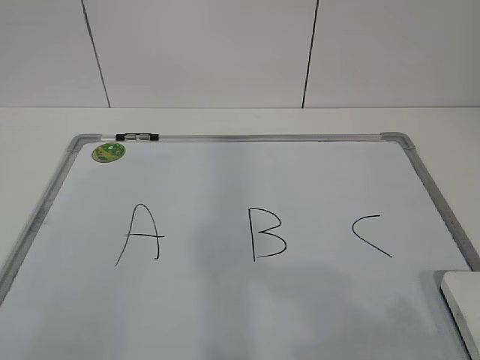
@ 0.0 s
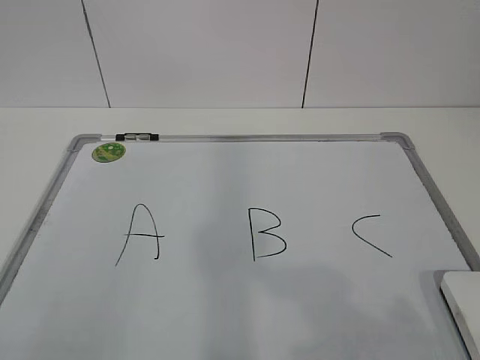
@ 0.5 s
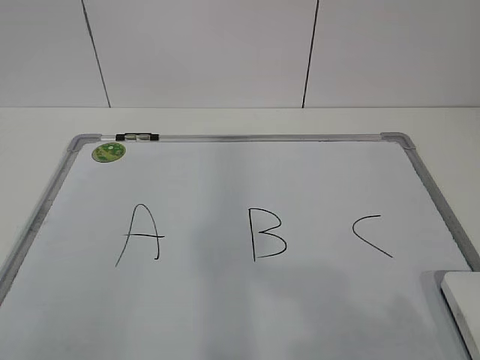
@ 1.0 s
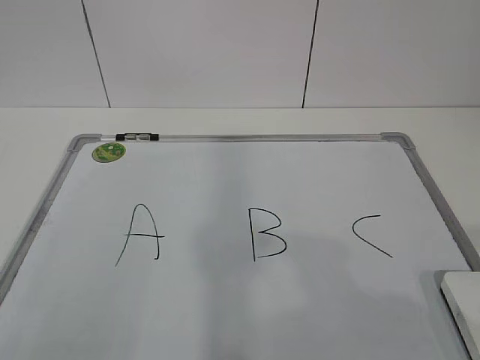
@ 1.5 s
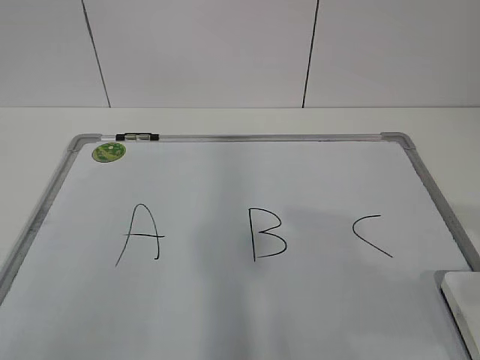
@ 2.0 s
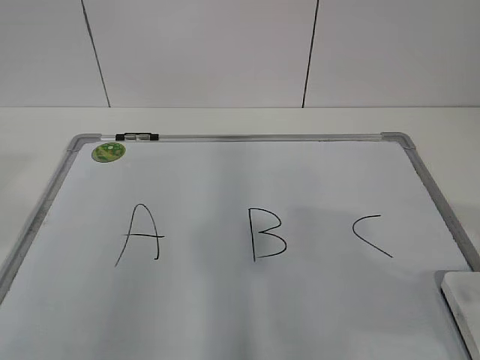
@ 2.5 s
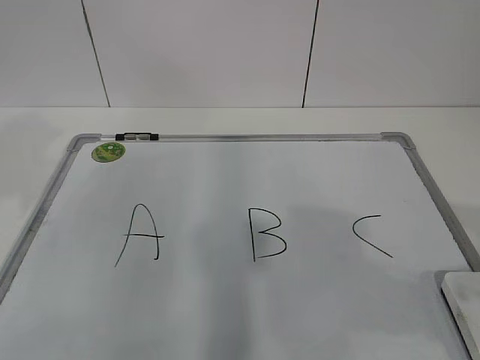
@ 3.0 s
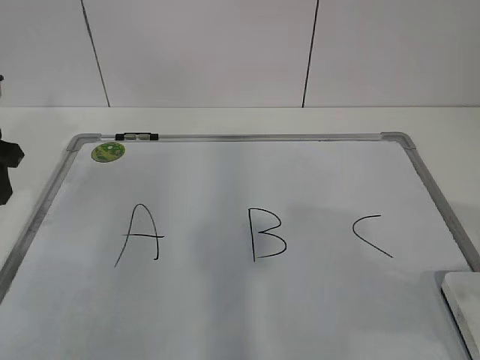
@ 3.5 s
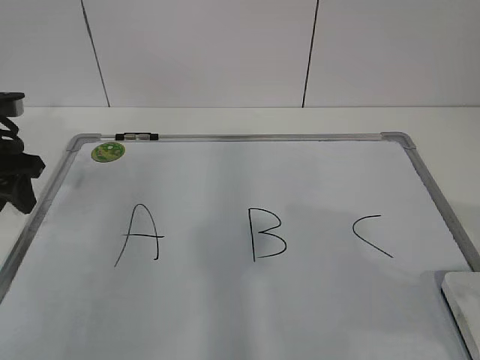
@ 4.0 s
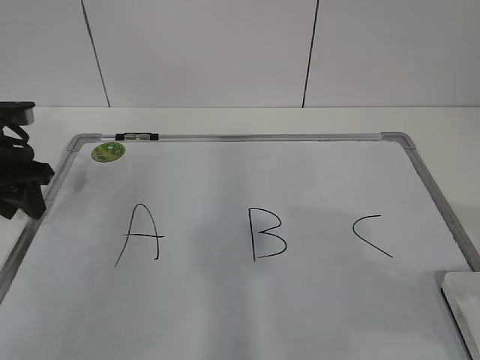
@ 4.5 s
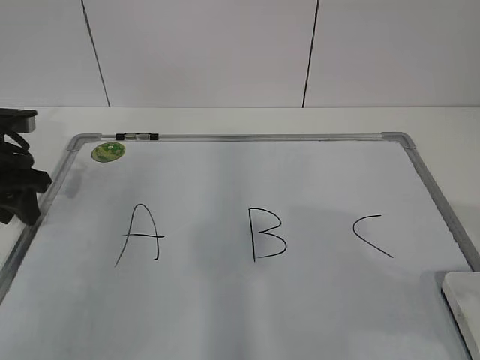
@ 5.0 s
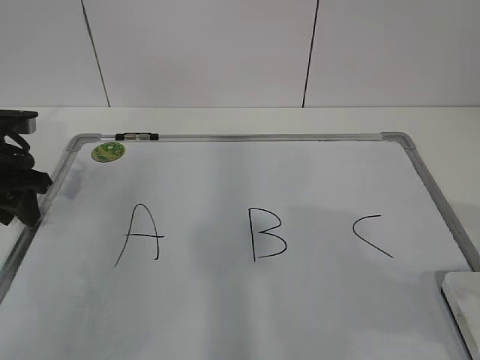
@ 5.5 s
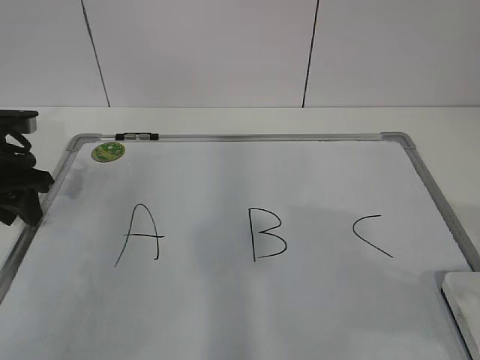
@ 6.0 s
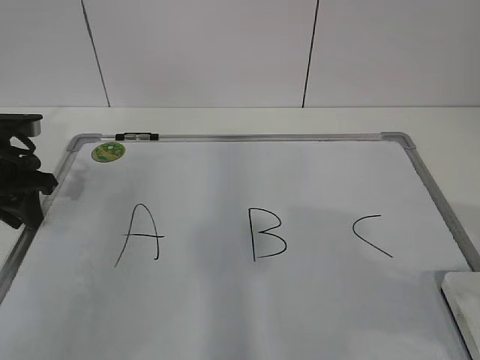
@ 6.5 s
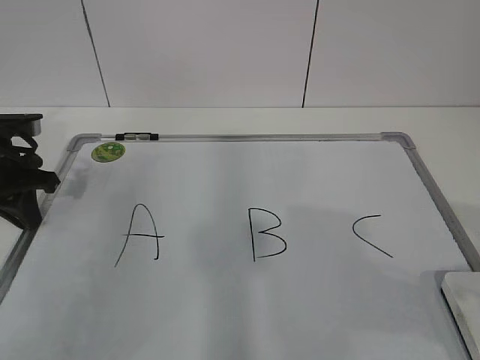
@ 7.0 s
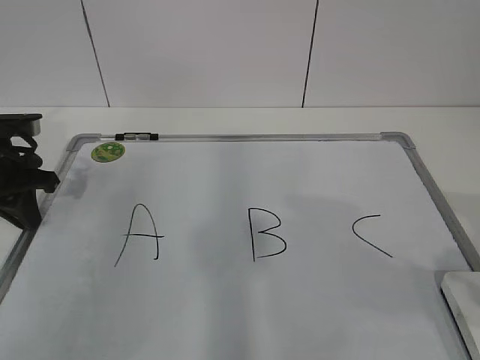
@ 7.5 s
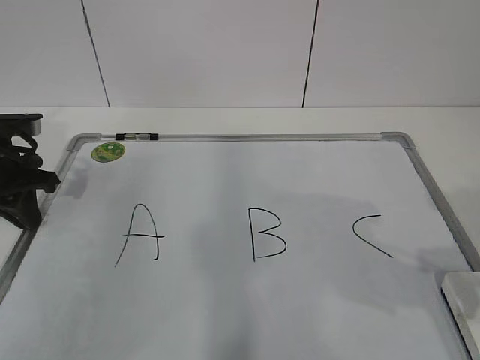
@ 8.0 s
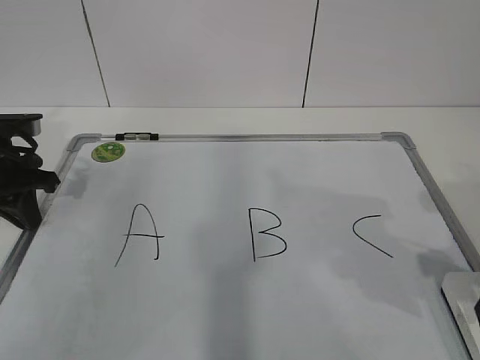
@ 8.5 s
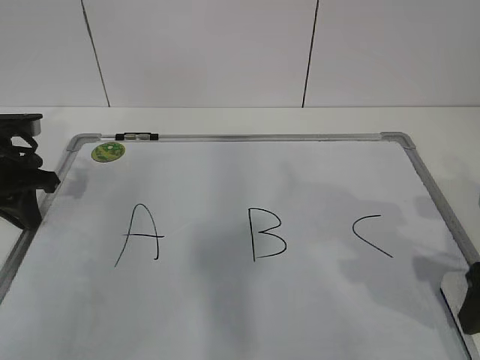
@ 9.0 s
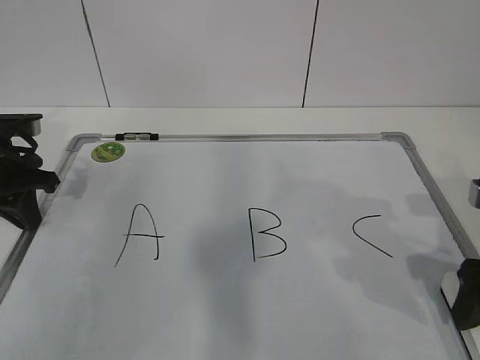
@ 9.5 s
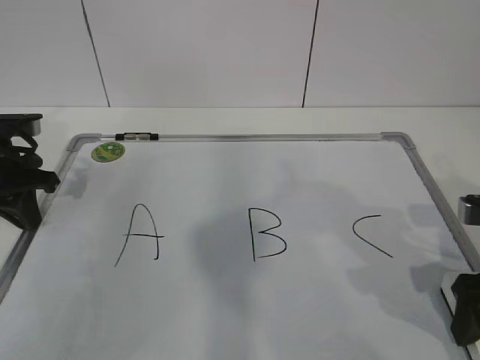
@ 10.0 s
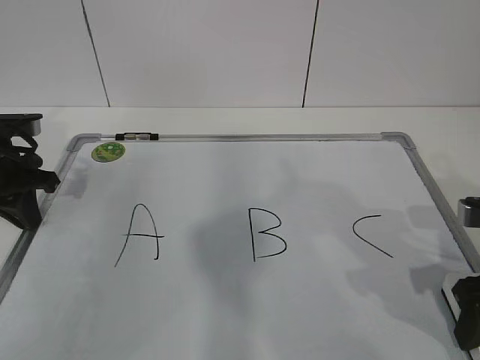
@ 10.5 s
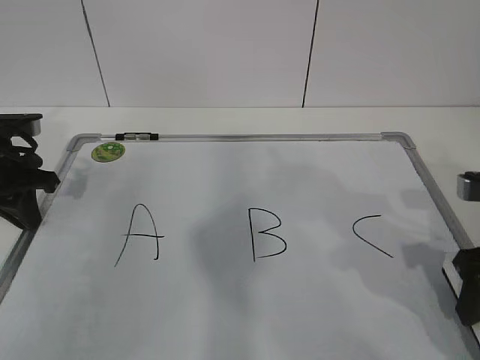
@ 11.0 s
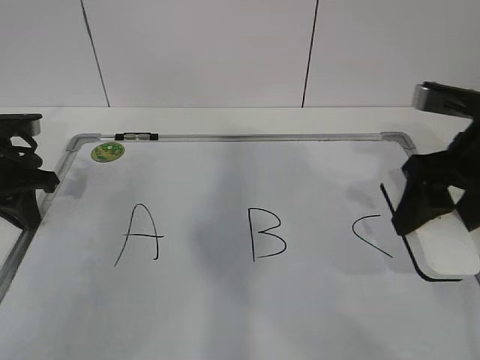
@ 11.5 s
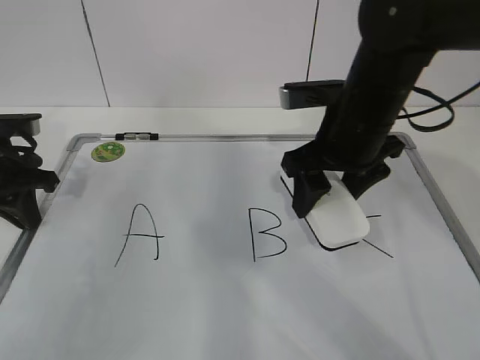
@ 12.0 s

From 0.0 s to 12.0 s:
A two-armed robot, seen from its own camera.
Task of the whole recording: pick up the eraser on the blackboard and erase the letter "B".
Step, from 0.0 s to 5.5 s: Hold the drawing board steady with your left hand.
From 2.0 s to 4.0 s: The left gripper is displaced forward by about 35 cm.
From 4.0 s to 6.0 s: There are only small adjustments of the grippers.
From 6.0 s to 8.0 s: The left gripper closes its fingers.
From 8.0 s to 10.0 s: The right gripper is displaced downward and forward by about 10 cm, and opens up.
From 10.0 s to 12.0 s: The right gripper shifts roughly 20 cm to the left, forward and upward, and closes up.

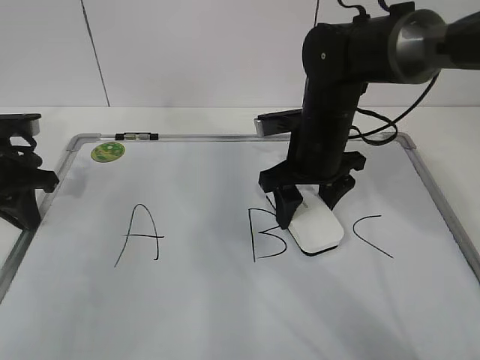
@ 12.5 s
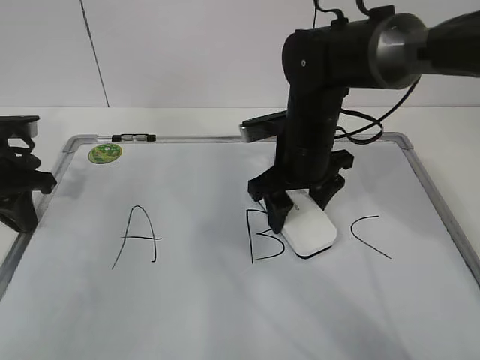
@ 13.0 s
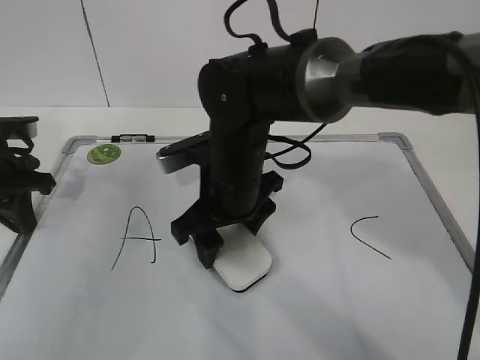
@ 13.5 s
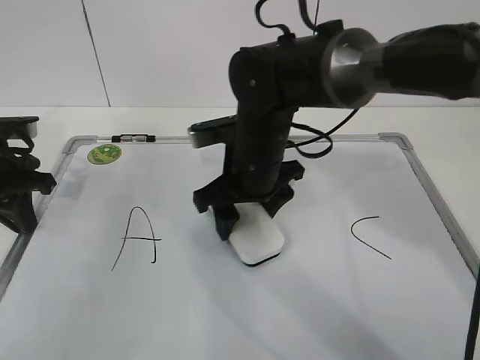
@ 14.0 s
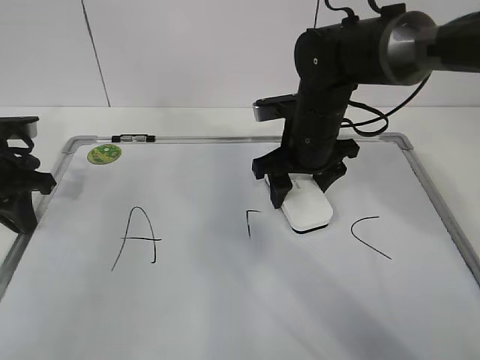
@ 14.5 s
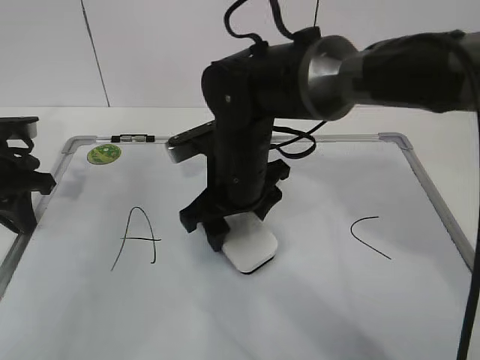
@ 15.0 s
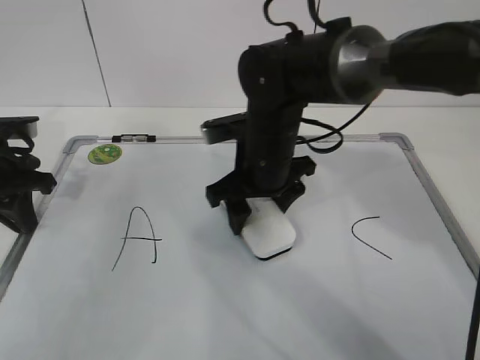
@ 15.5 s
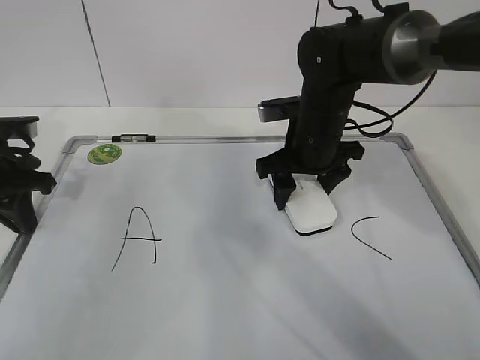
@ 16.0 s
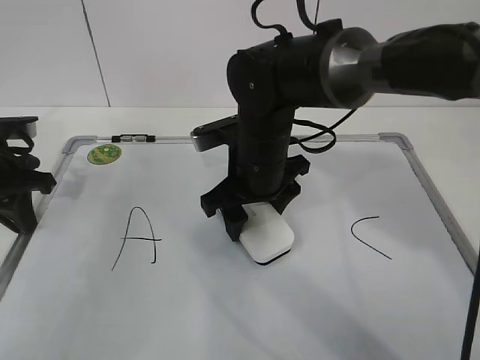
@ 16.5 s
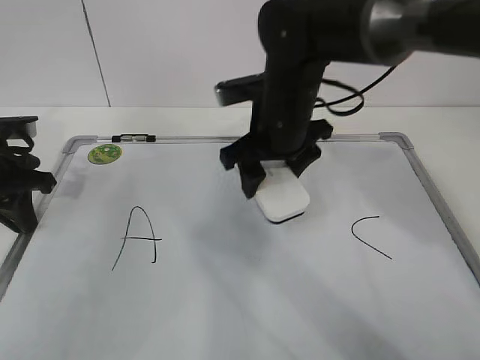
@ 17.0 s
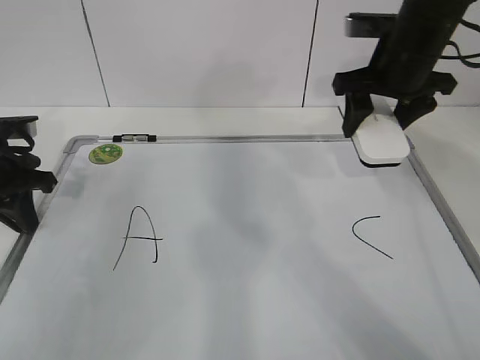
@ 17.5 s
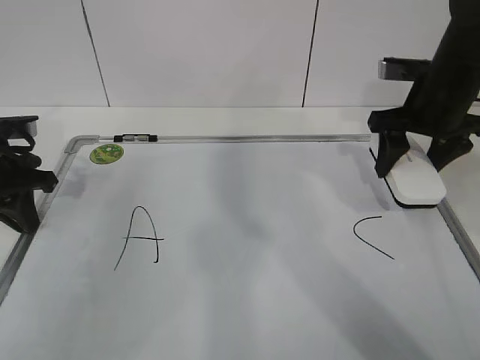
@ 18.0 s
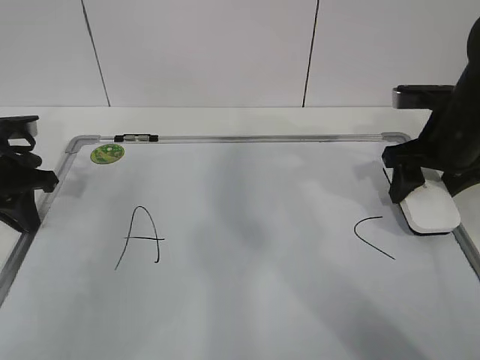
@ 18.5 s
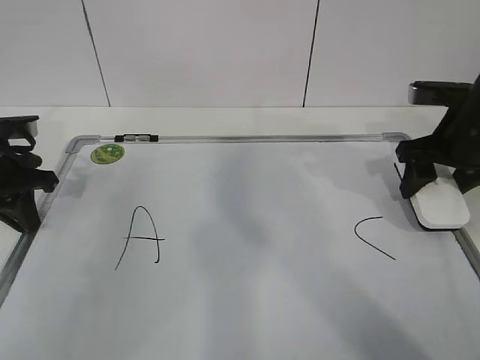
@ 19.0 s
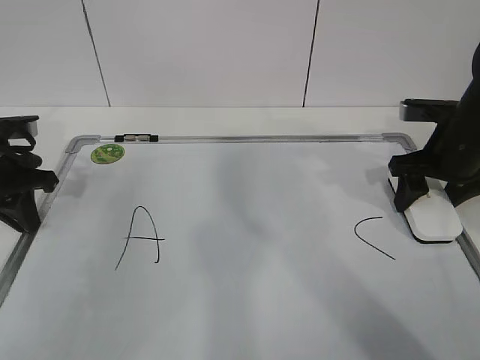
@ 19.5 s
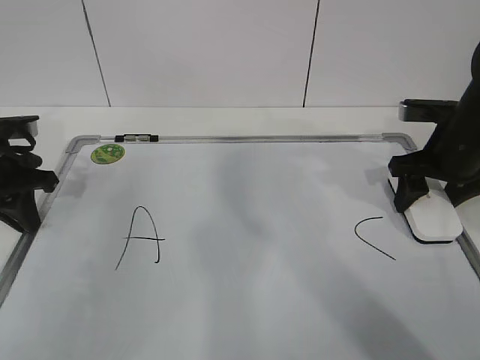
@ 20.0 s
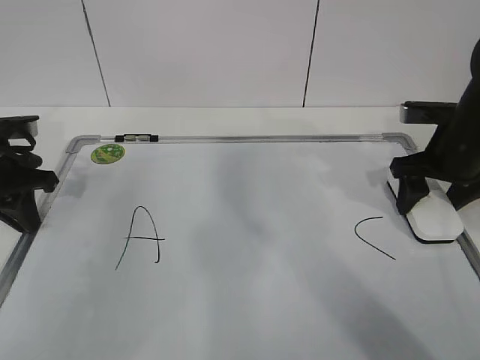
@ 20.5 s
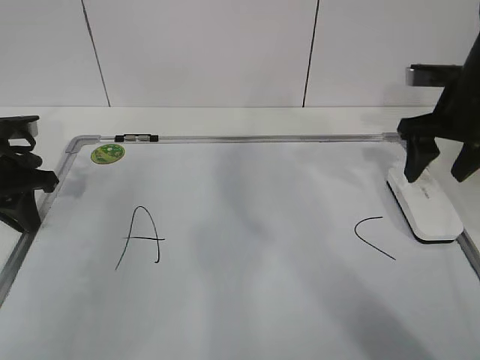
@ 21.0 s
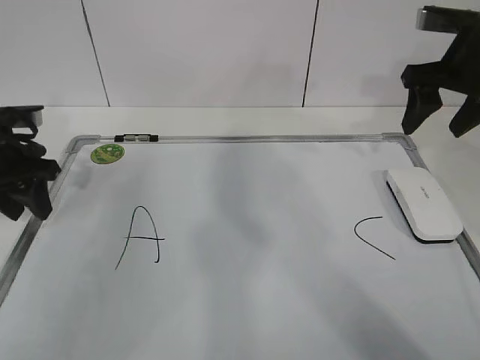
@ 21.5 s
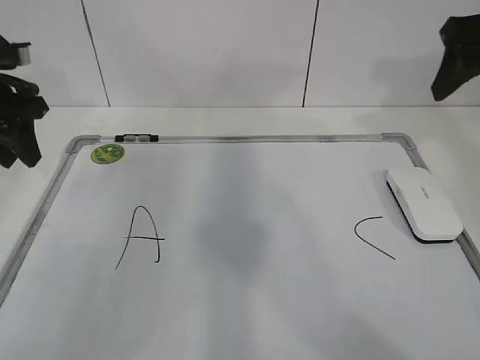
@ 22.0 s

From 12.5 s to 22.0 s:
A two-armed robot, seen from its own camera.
Task of the whole recording: pick up the eraser on the blackboard and erase the letter "B".
Step, from 14.0 s to 16.5 s: Put down the eraser with your right hand.
From 12.5 s to 14.5 s: The right gripper travels to the left and back again, approximately 10 cm each way.
From 14.5 s to 16.5 s: The right gripper goes left and right, roughly 10 cm each way, reversing 2 times.
From 16.5 s to 18.0 s: The right gripper goes some 20 cm to the right.
From 18.0 s to 20.0 s: The right gripper goes about 5 cm downward.
From 20.0 s to 22.0 s: The left gripper shifts some 10 cm upward, and opens up, while the right gripper is displaced upward by roughly 15 cm, and opens its fingers.

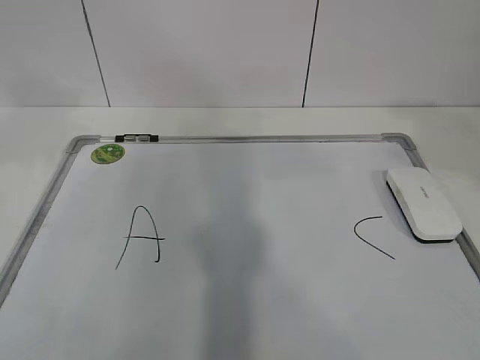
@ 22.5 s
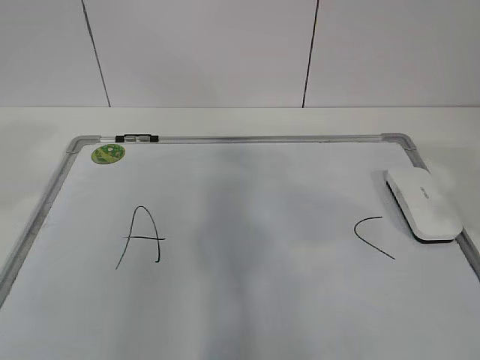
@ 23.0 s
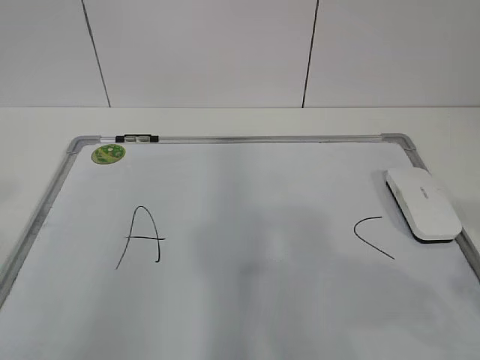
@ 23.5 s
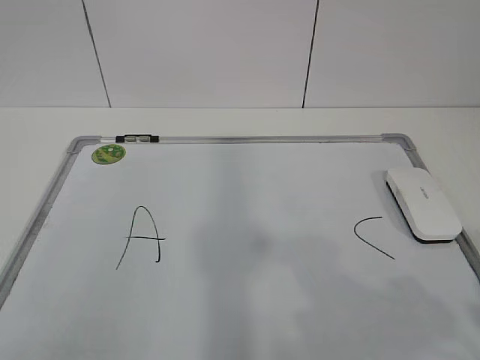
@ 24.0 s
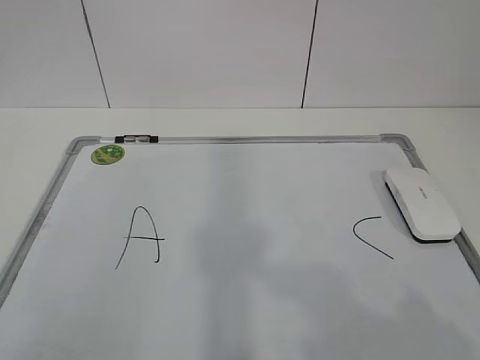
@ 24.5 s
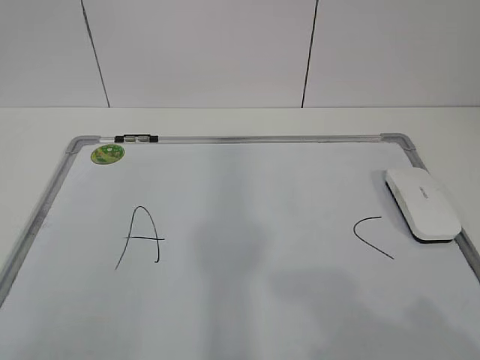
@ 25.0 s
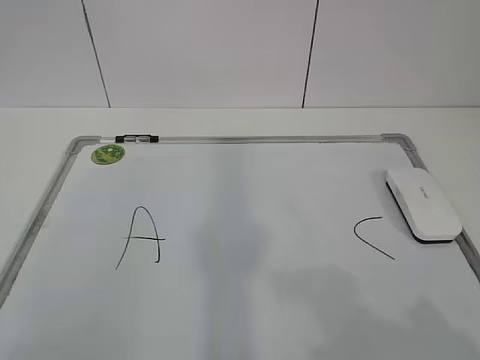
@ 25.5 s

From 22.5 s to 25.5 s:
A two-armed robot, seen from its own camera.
Task of the whole recording: pick up the eraser on the blackboard and erase the letter "B".
From 22.5 s to 24.0 s: The left gripper shifts approximately 30 cm backward; the right gripper shifts roughly 20 cm backward and downward.

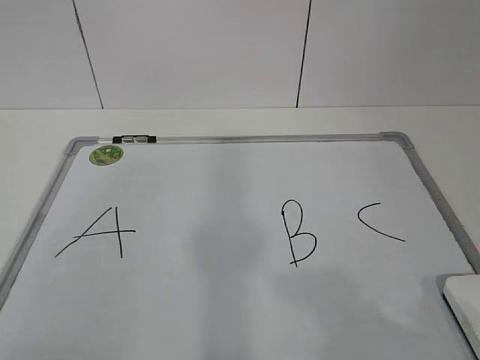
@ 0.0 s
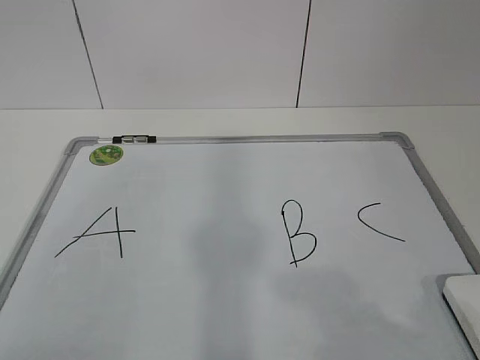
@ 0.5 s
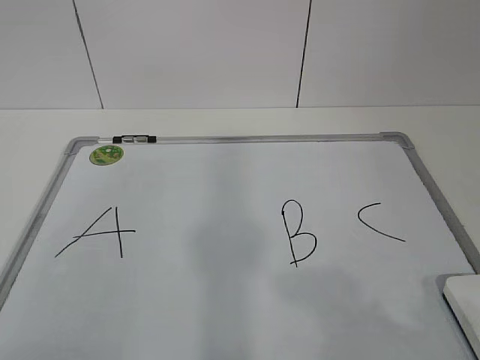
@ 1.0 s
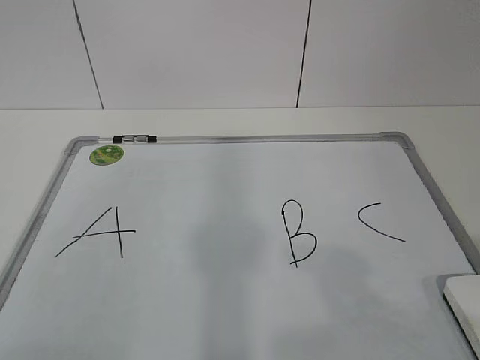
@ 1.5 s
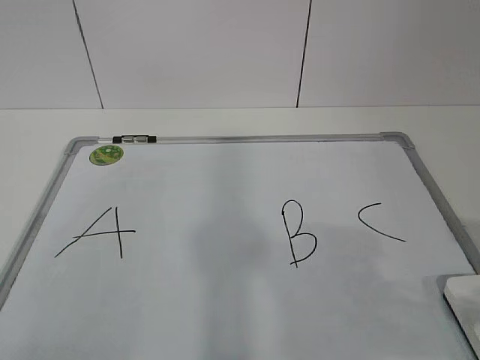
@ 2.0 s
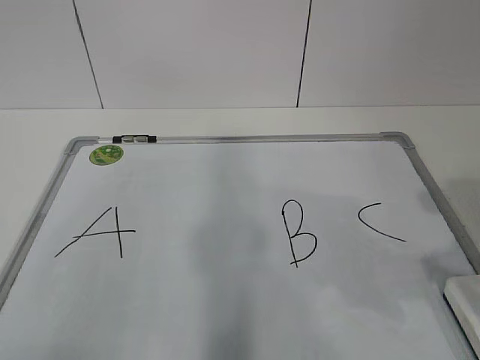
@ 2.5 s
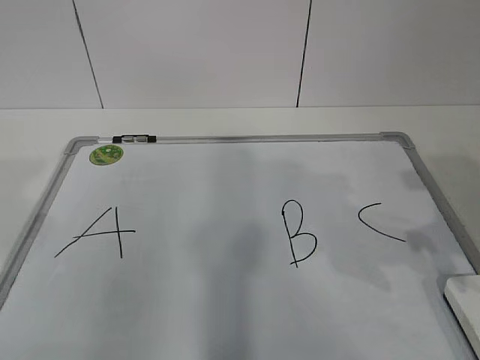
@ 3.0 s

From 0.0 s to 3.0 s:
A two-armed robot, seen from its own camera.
Task of the whole recording: pick up the eraser on the blackboard and erase the letter "B".
From 1.5 s to 3.0 s: The grippers both shift forward by about 15 cm.
